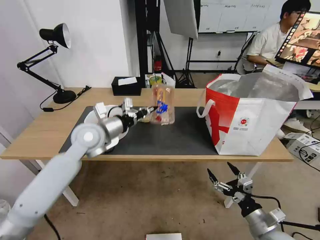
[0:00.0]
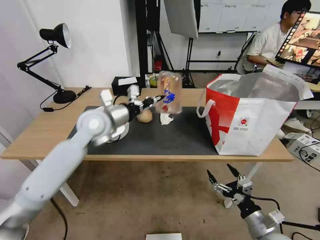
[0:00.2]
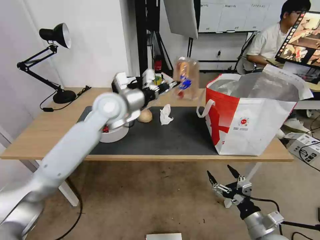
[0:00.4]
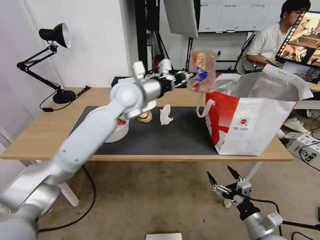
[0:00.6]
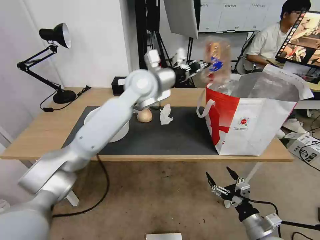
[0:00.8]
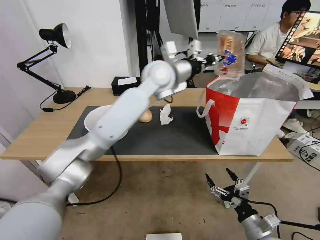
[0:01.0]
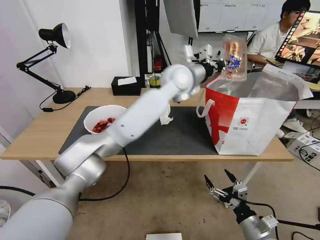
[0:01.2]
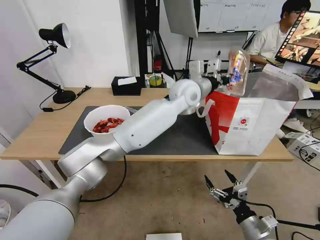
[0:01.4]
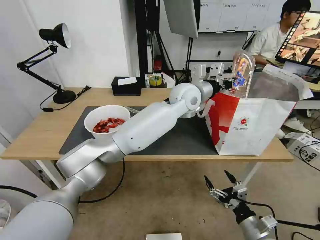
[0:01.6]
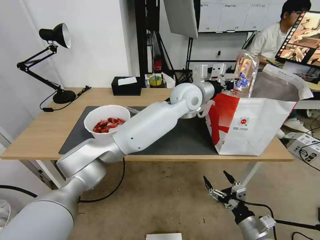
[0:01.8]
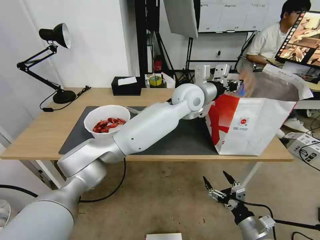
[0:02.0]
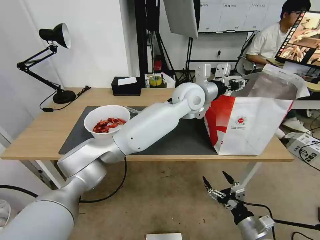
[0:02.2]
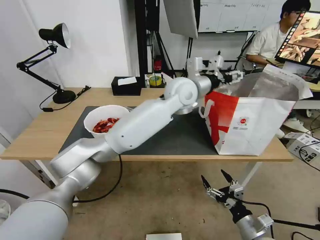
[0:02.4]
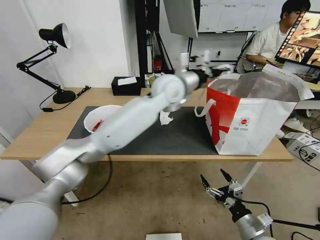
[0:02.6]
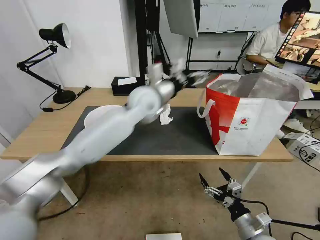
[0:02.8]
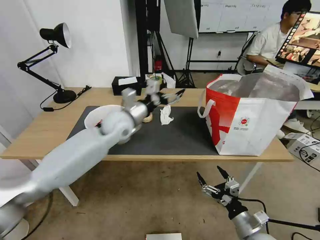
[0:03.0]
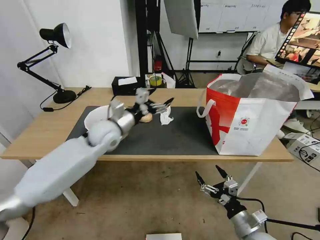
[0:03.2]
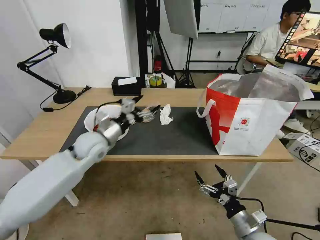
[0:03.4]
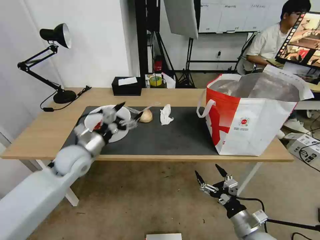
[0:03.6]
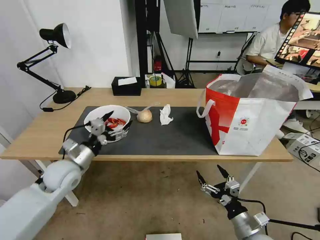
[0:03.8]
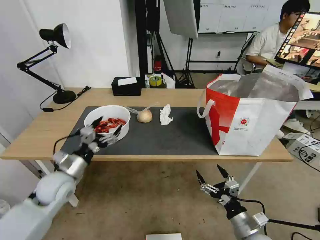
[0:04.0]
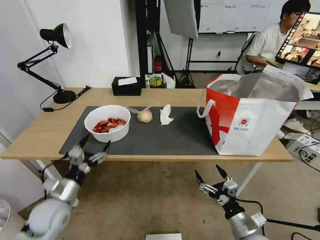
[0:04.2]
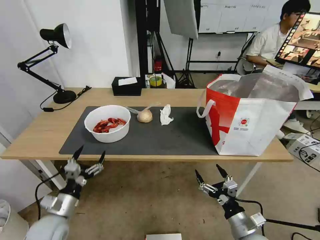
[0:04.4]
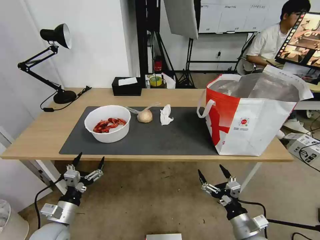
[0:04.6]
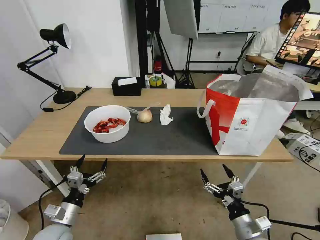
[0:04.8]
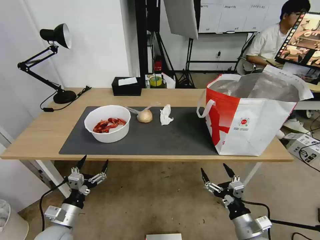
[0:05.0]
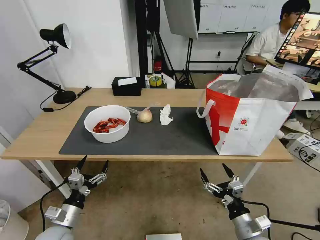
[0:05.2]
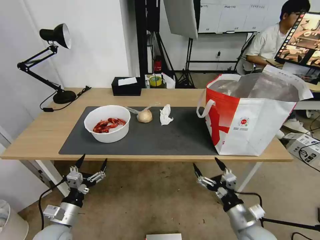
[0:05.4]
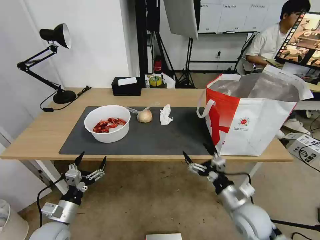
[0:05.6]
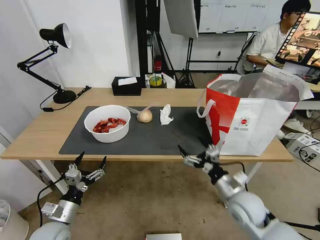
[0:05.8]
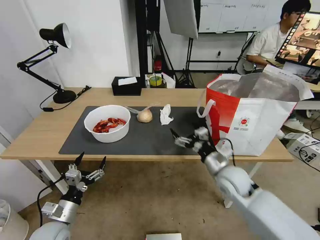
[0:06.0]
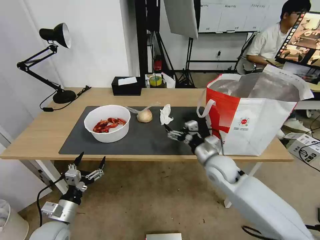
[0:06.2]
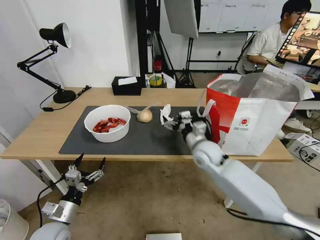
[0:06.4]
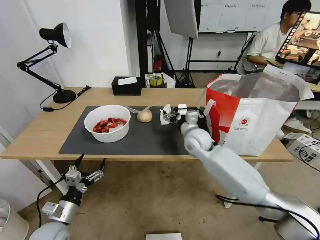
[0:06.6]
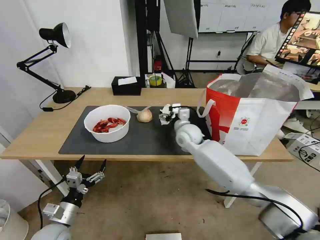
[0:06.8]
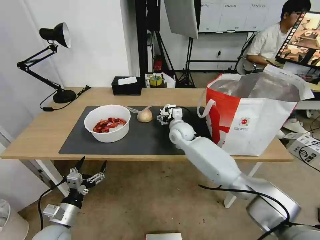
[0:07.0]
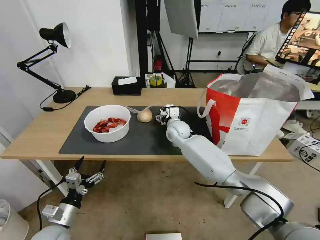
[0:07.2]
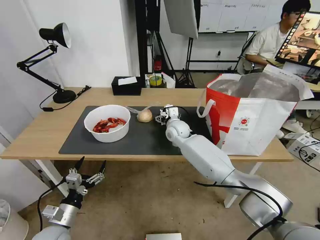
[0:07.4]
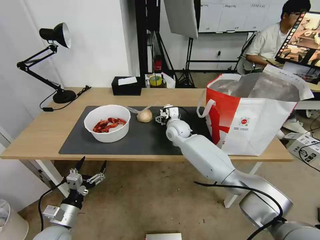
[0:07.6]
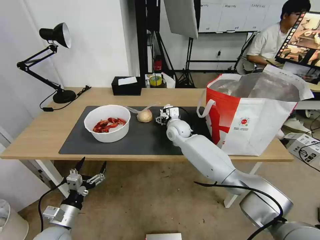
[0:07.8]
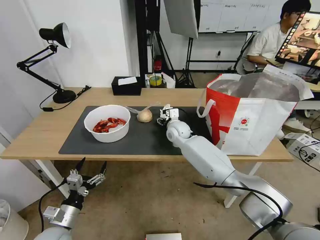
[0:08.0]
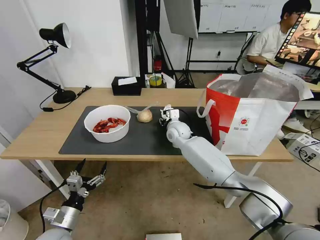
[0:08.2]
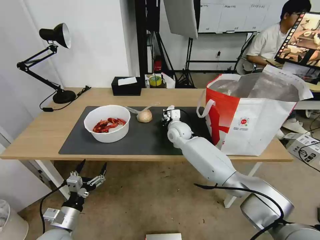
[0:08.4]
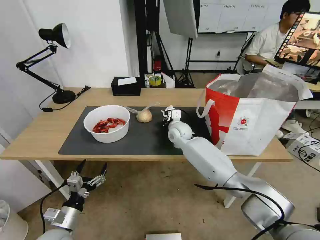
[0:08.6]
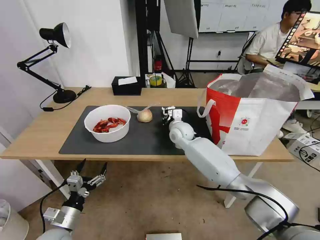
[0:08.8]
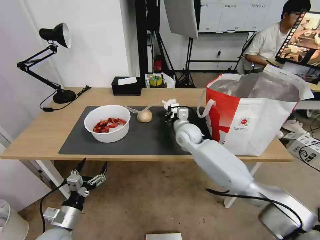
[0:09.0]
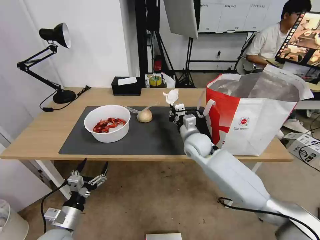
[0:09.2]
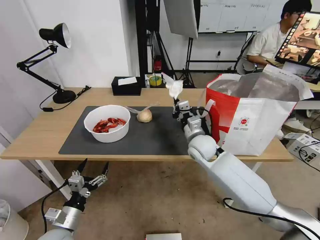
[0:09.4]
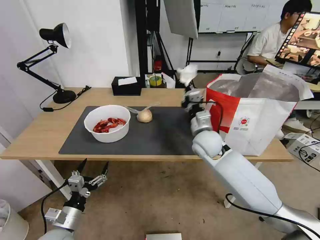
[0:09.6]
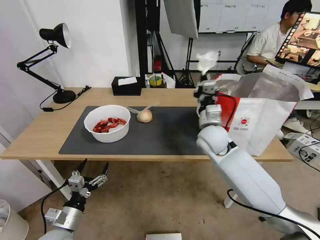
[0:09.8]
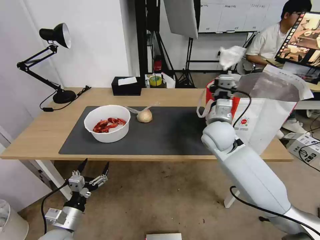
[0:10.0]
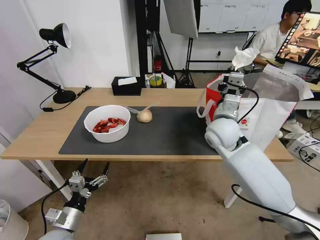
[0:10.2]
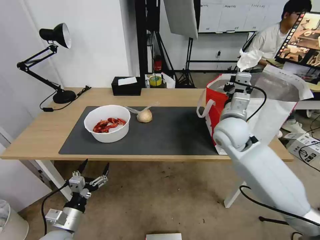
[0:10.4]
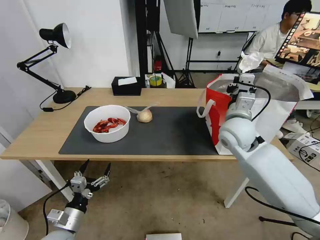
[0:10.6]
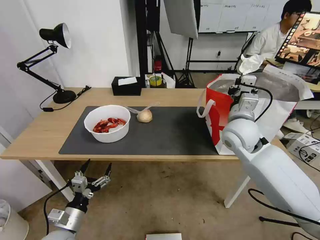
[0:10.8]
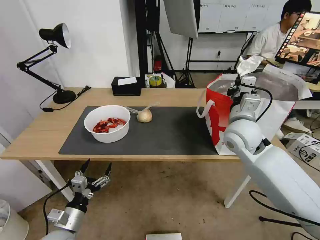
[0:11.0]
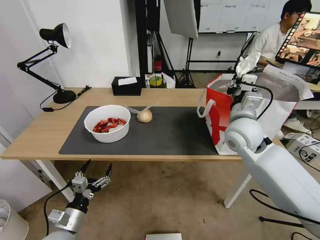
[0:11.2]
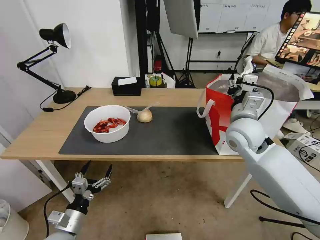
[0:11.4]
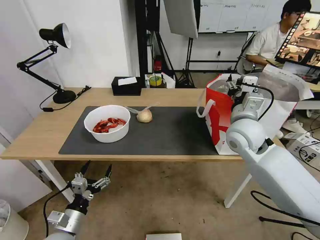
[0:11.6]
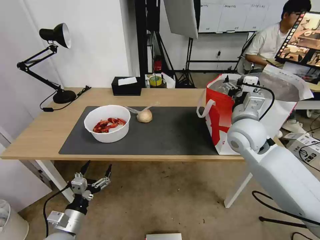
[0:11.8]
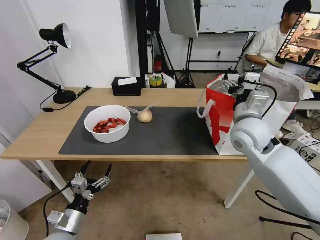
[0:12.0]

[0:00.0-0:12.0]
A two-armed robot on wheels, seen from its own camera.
Task of the whole recording: Pick up the trash from the table and place it into the takeout bag.
0:00.0 to 0:01.6: The left gripper moves to the right, roughly 30 cm.
0:01.6 to 0:03.0: The left gripper heads to the left, covering about 20 cm, and opens.
0:03.0 to 0:04.4: The left gripper moves backward, downward and to the left, roughly 40 cm.
0:04.4 to 0:06.0: The right gripper heads forward and upward, covering some 20 cm.
0:06.0 to 0:07.6: The right gripper heads forward and to the left, covering about 25 cm.
0:07.6 to 0:09.0: The right gripper ends up approximately 5 cm from where it was, and closes up.
0:09.0 to 0:10.4: The right gripper moves upward, to the right and backward, some 15 cm.
0:10.4 to 0:12.0: The right gripper changes place by some 5 cm, and opens.

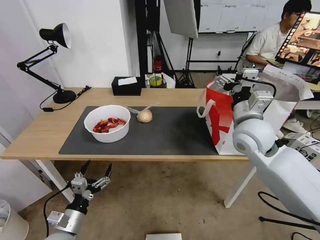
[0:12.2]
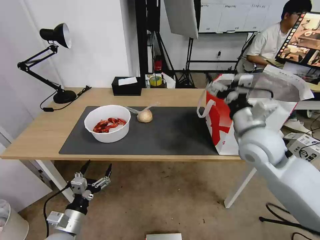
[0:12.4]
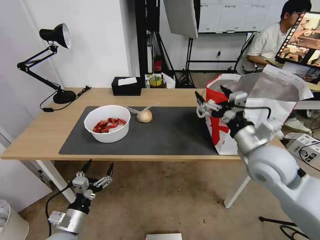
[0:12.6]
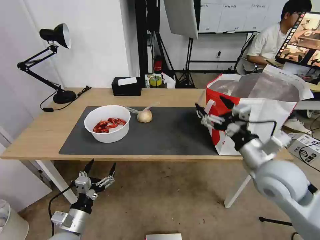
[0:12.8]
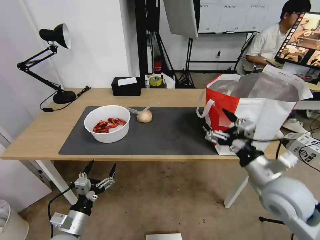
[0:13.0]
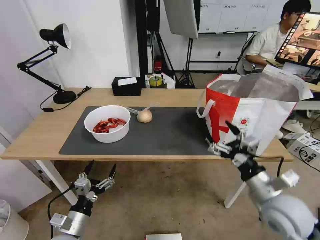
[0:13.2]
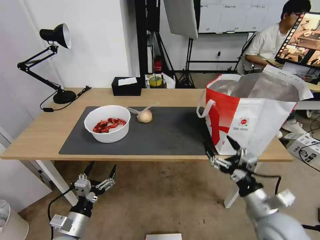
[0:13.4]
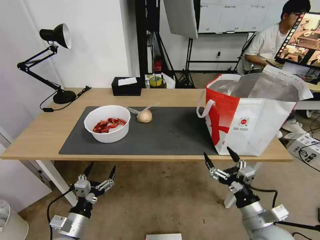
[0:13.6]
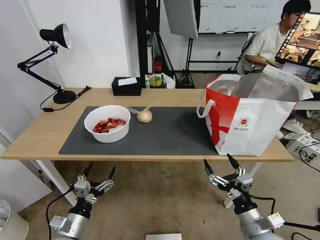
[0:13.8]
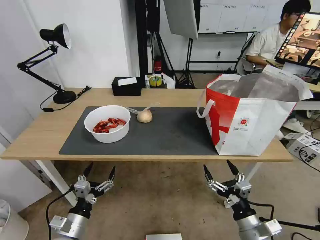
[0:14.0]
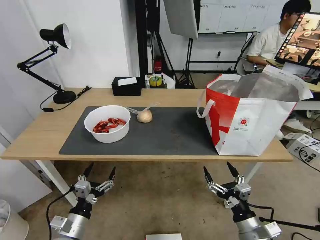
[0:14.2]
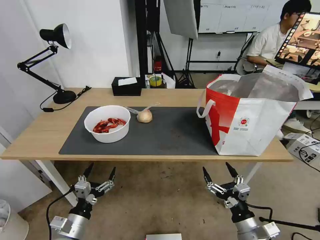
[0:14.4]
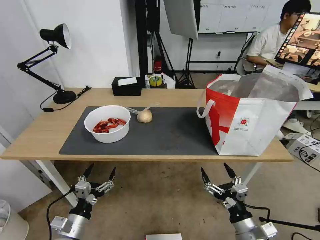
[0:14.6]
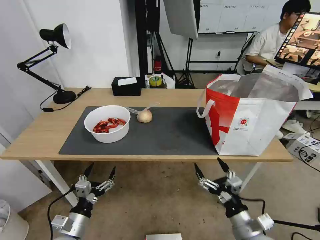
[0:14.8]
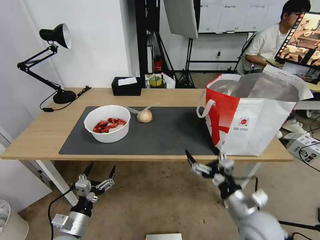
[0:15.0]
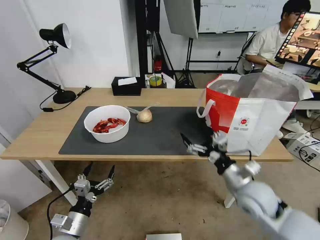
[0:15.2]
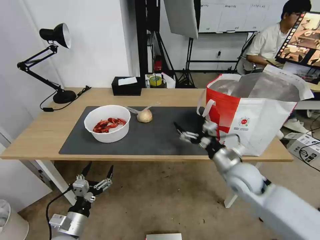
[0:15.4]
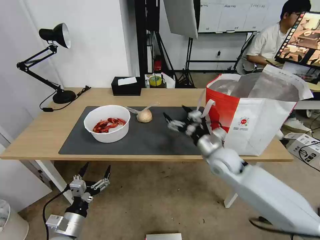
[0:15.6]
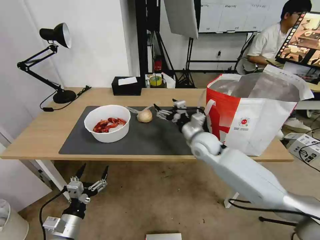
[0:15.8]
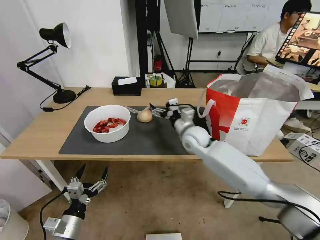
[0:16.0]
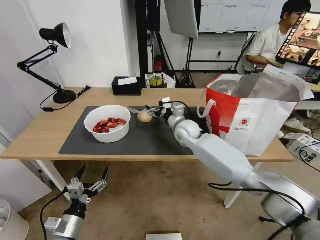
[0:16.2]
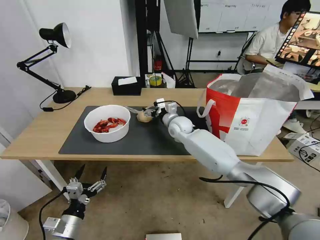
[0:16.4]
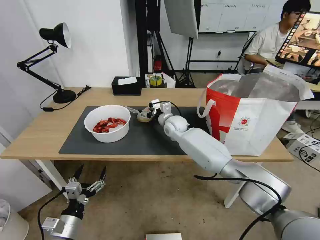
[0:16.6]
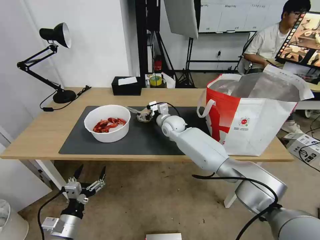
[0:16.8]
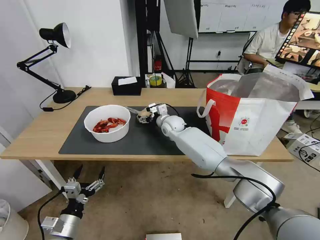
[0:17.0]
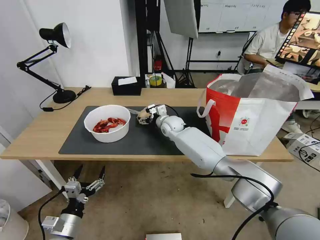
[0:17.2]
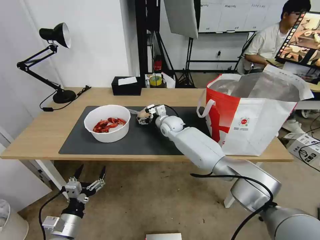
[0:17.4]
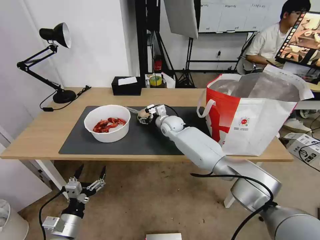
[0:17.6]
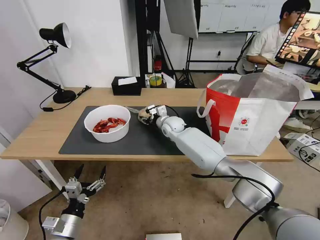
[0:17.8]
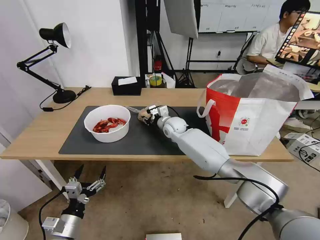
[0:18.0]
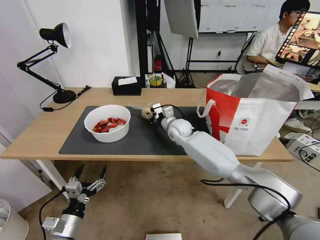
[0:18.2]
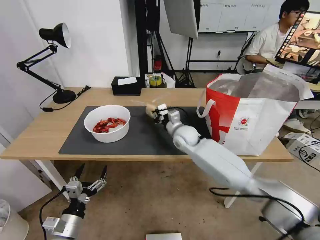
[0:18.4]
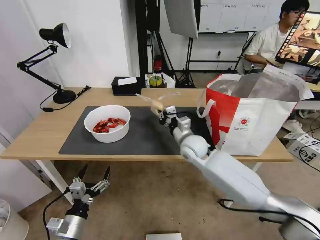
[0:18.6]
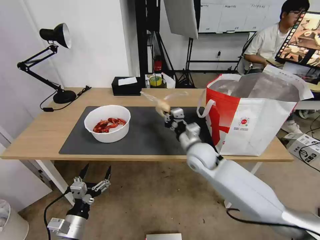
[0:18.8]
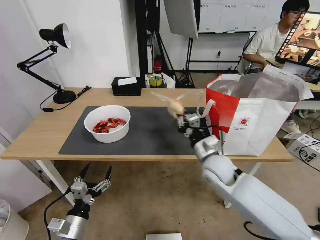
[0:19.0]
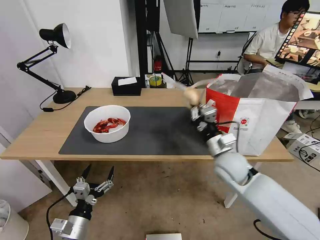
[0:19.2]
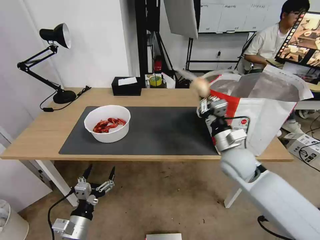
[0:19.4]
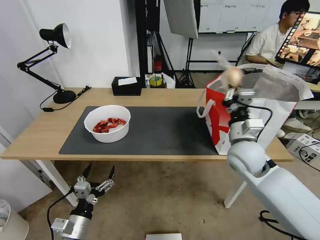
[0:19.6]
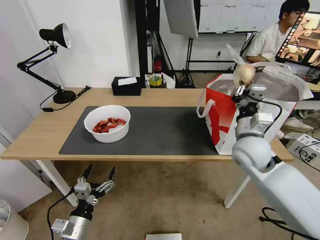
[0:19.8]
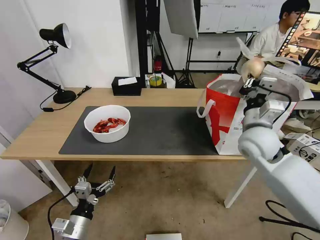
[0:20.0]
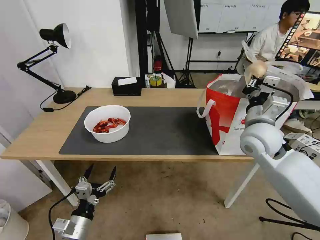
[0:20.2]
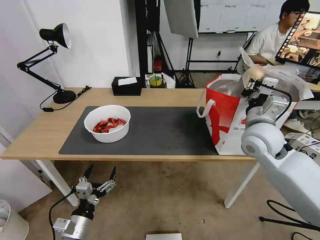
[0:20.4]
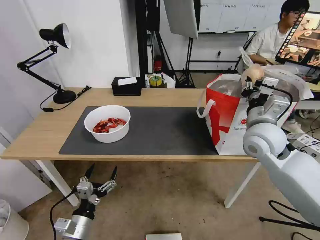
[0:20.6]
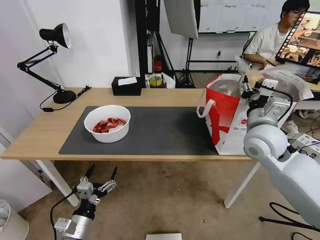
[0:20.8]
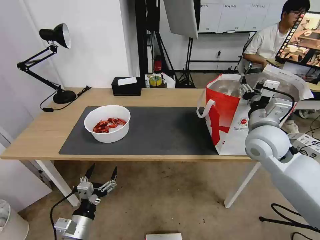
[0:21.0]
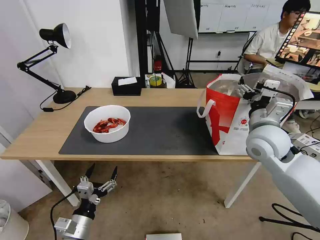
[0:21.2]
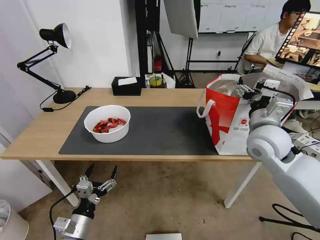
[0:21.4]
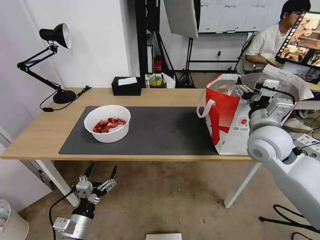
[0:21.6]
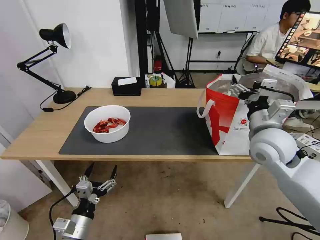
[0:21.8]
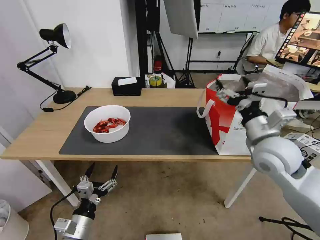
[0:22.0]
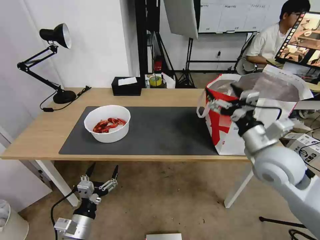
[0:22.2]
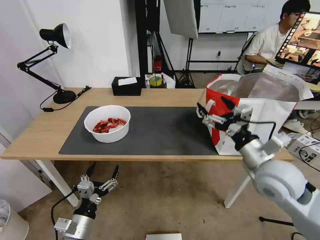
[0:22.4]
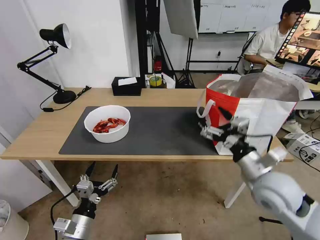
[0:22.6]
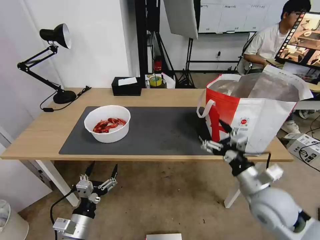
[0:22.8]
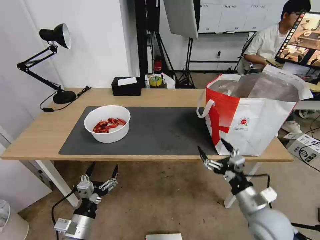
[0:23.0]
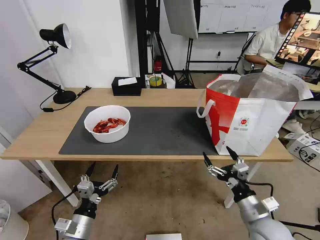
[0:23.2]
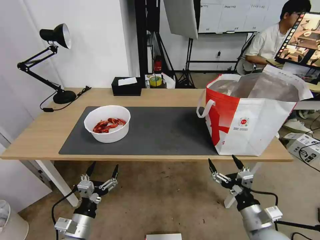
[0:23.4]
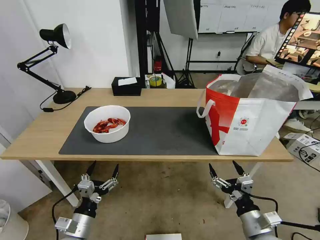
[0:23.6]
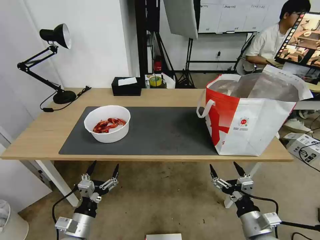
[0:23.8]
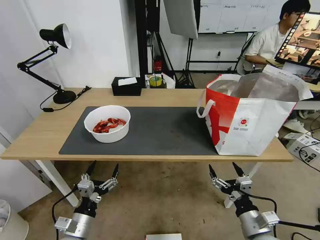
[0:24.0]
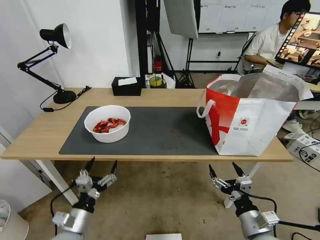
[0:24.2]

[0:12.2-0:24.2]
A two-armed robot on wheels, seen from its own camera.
Task of the whole recording: Pick up the trash from the table and place it into the takeout bag.
0:12.2 to 0:13.8: The right gripper goes roughly 30 cm backward and downward.
0:13.8 to 0:15.2: The right gripper travels forward and upward by some 15 cm.
0:15.2 to 0:16.6: The right gripper moves forward and to the left, roughly 35 cm.
0:16.6 to 0:18.2: The right gripper closes up.
0:18.2 to 0:19.8: The right gripper shifts approximately 25 cm backward, to the right and upward.
0:19.8 to 0:21.2: The right gripper goes some 5 cm upward, and opens up.
0:21.2 to 0:22.6: The right gripper travels backward and downward by about 15 cm.
0:22.6 to 0:24.2: The right gripper shifts approximately 15 cm downward and backward.
